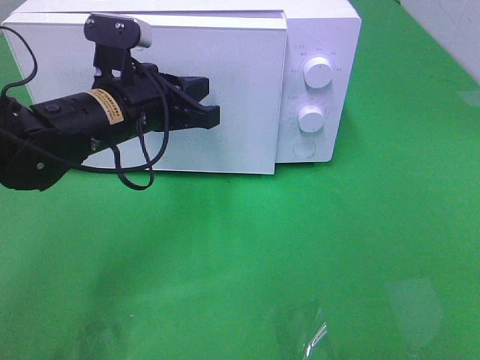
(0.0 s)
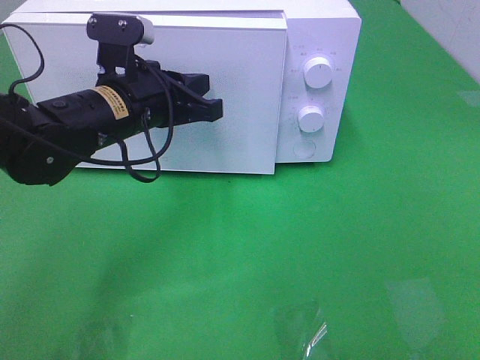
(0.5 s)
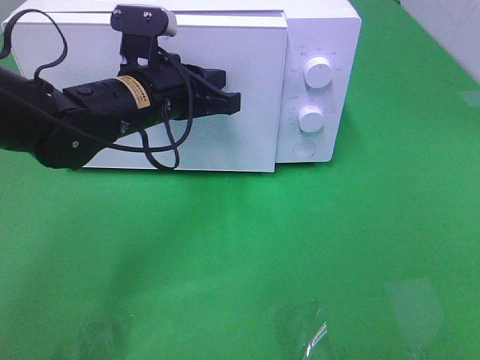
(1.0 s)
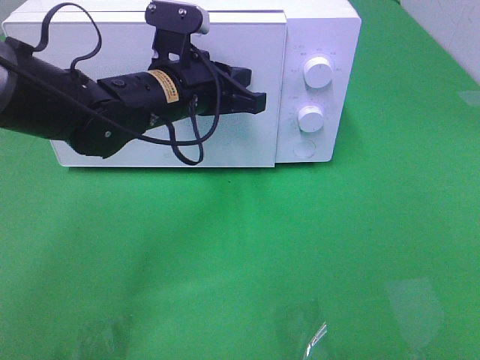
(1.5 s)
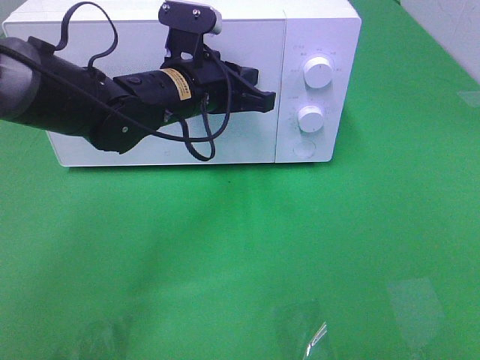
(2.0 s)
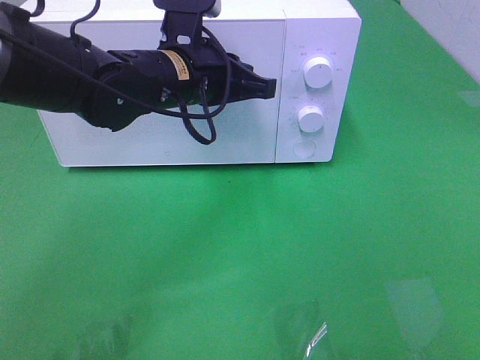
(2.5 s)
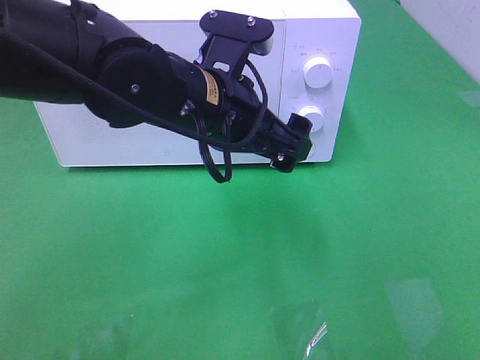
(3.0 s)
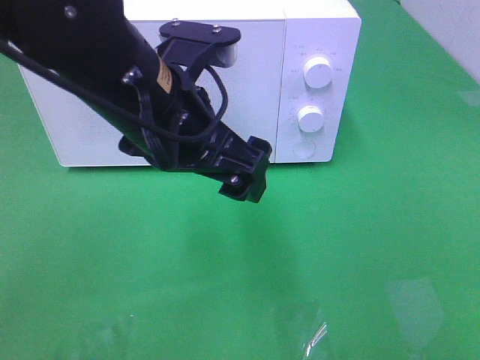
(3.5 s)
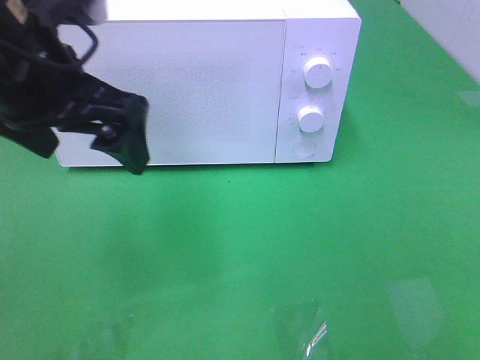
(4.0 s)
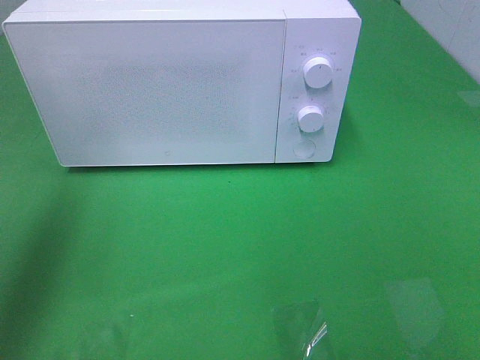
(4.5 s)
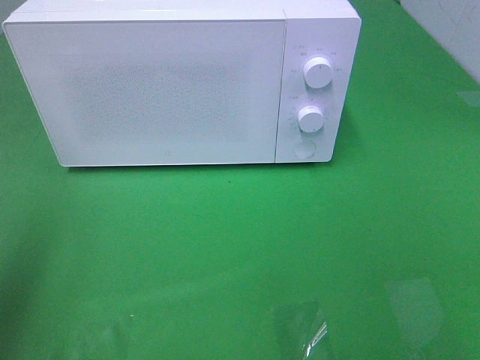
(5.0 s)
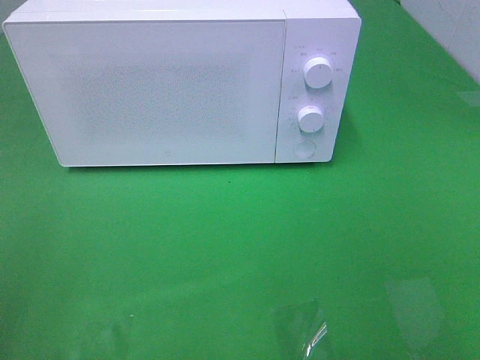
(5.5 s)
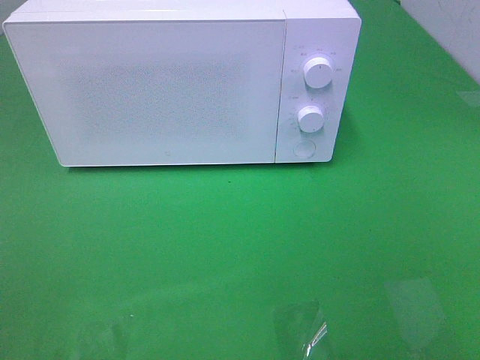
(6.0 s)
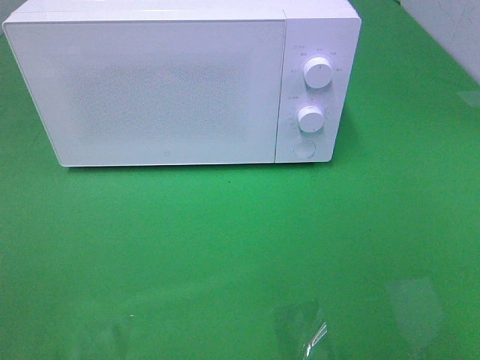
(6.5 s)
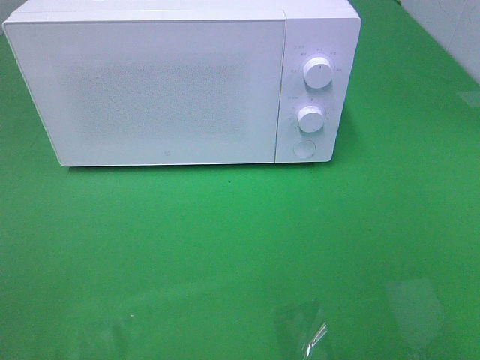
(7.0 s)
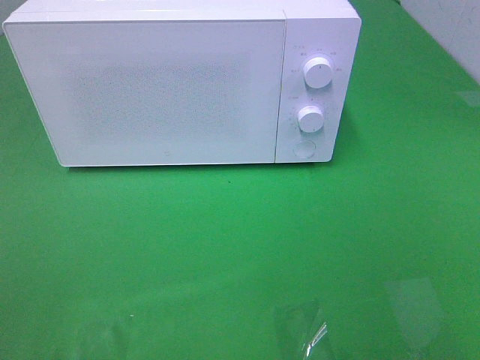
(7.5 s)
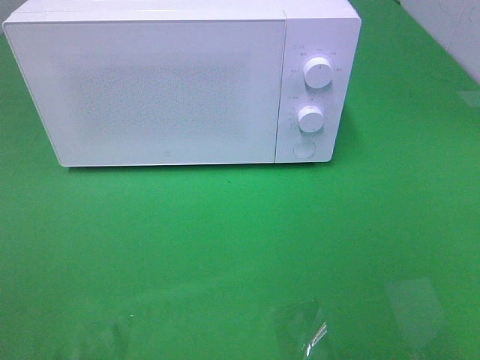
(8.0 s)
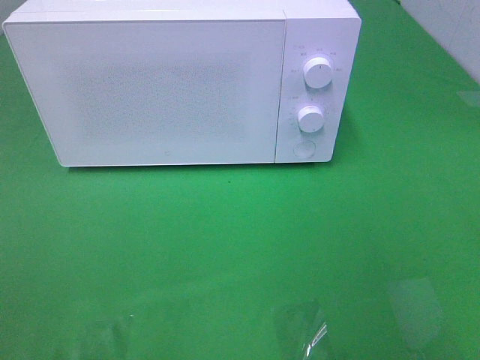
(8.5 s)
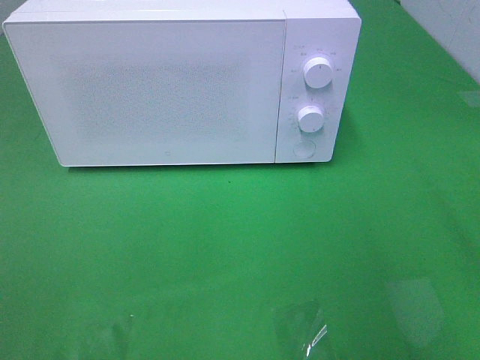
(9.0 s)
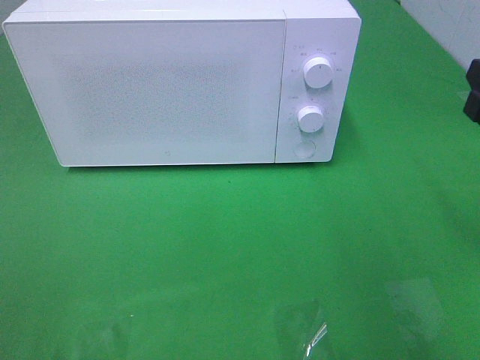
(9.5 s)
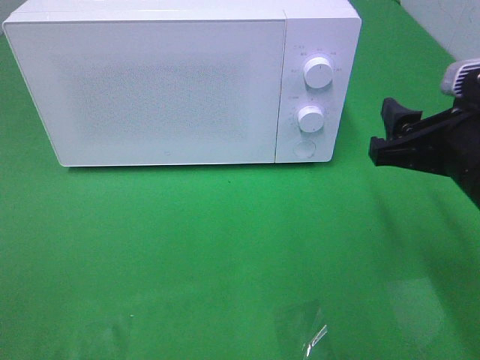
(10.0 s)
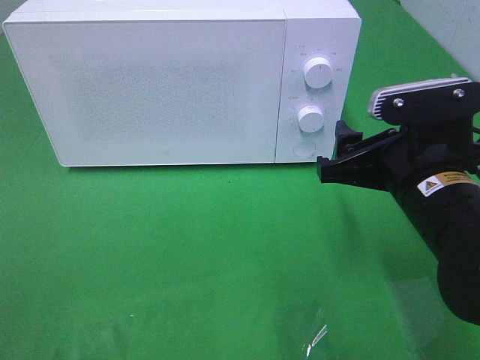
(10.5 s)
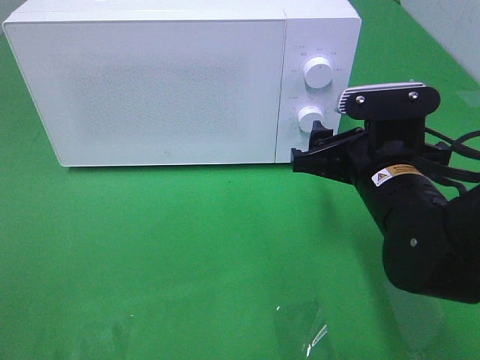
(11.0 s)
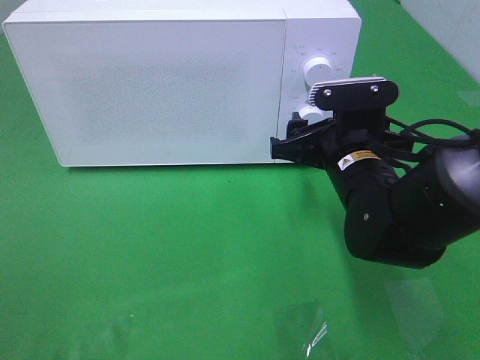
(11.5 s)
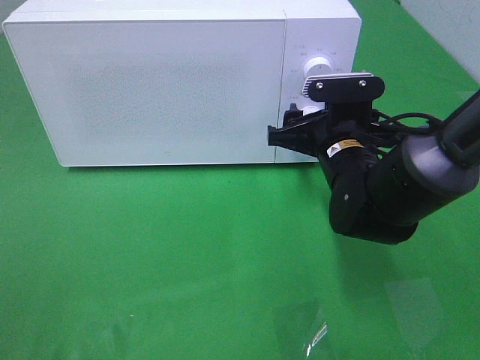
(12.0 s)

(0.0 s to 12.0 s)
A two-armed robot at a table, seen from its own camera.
Task of the whole recording: Heat the burger.
Step, 0.0 s - 2.5 s: Left hand: close the microwave door.
0.0 s - 2.0 s: The left gripper goes some 5 cm to the right.
2.0 s - 4.0 s: The left gripper goes some 20 cm upward, backward and to the left, and opens.
4.0 s - 6.0 s: The left gripper goes approximately 30 cm backward and to the left.
8.0 s - 10.0 s: The right gripper is displaced forward, downward and to the left by some 20 cm.
10.0 s - 12.0 s: The right gripper goes about 15 cm forward, to the left and downward.

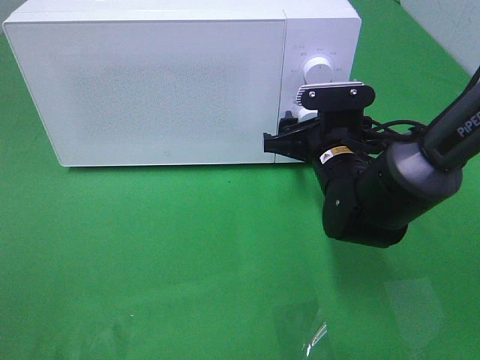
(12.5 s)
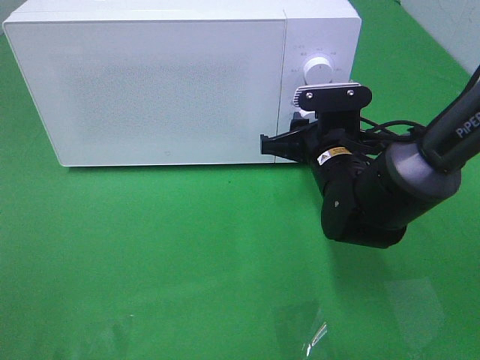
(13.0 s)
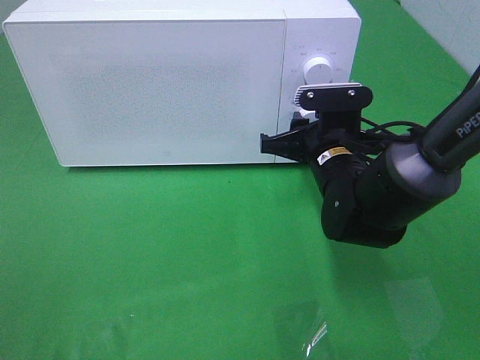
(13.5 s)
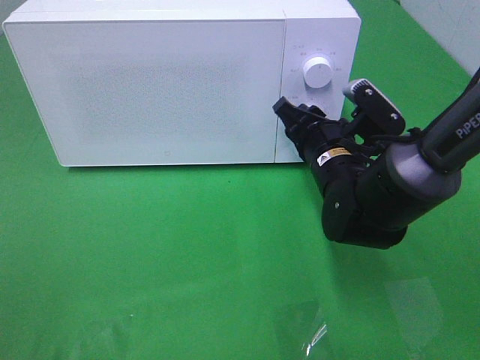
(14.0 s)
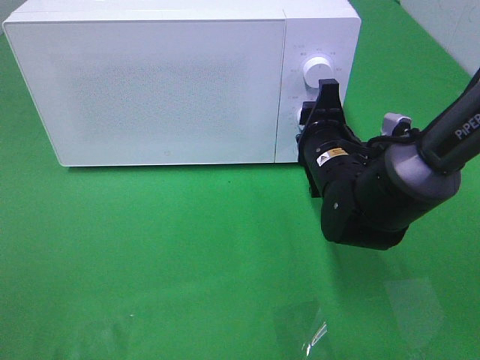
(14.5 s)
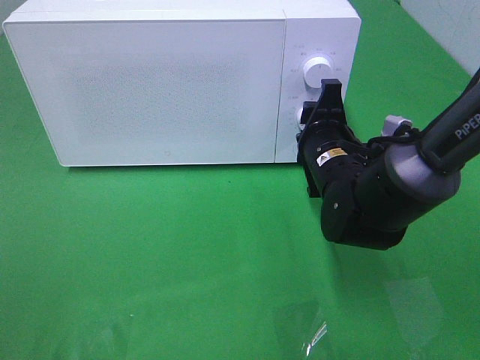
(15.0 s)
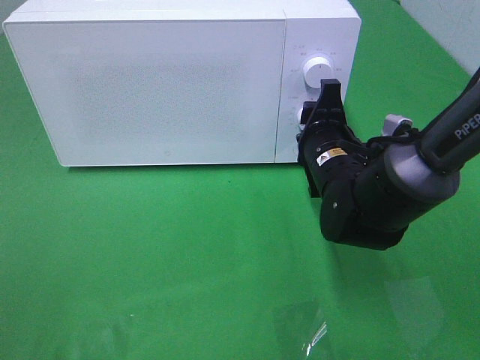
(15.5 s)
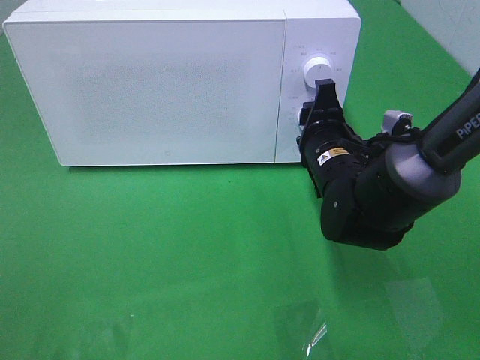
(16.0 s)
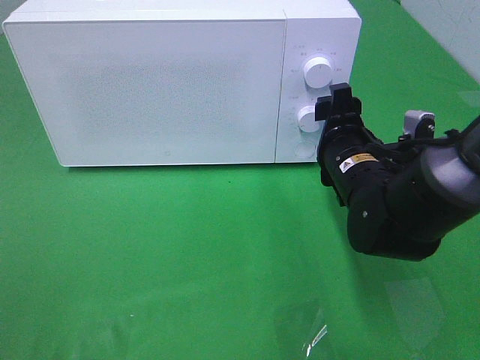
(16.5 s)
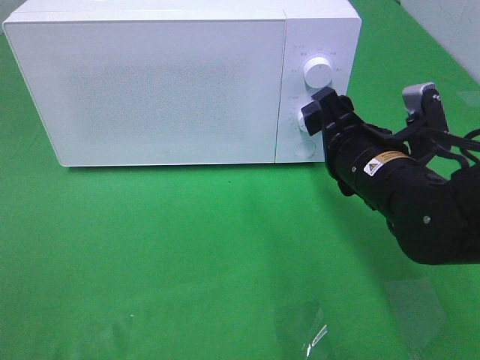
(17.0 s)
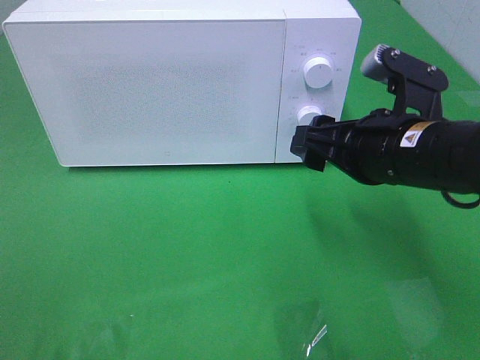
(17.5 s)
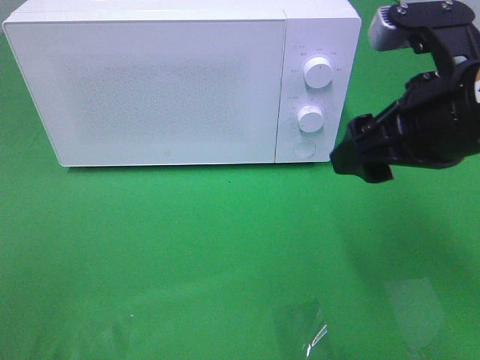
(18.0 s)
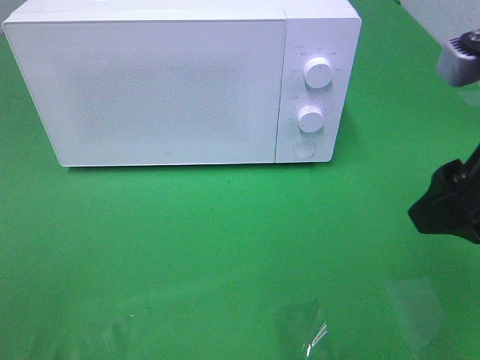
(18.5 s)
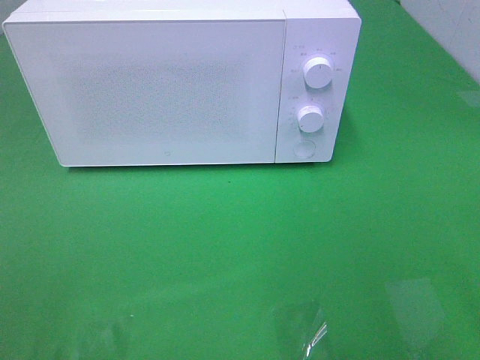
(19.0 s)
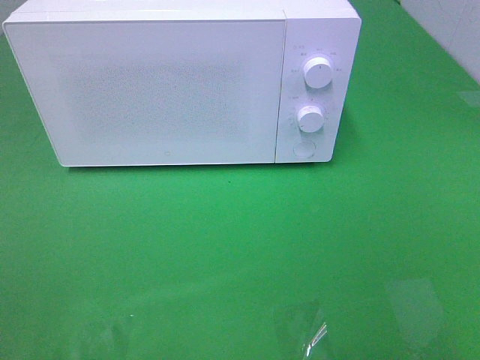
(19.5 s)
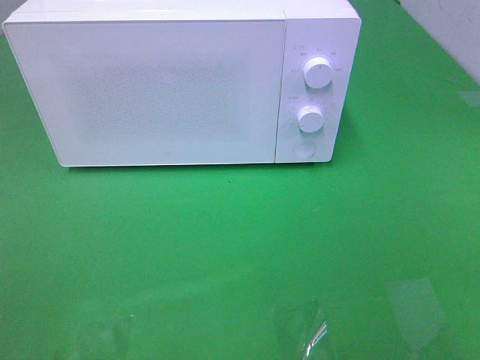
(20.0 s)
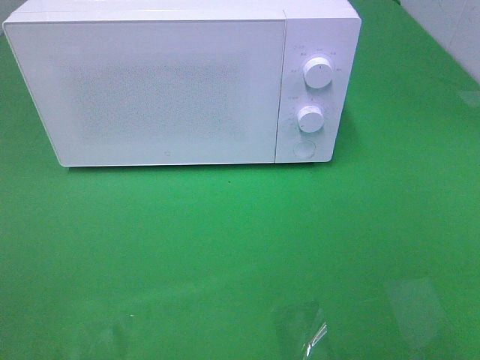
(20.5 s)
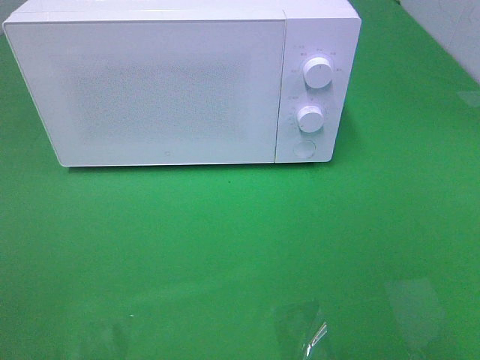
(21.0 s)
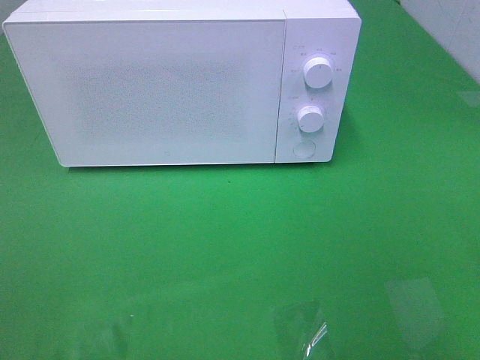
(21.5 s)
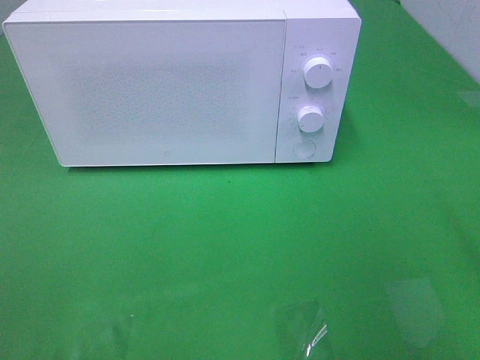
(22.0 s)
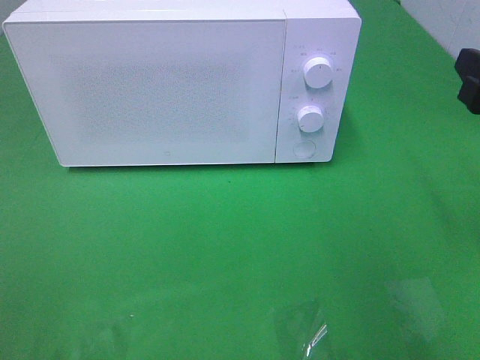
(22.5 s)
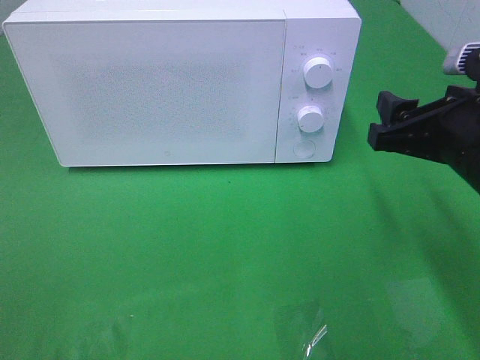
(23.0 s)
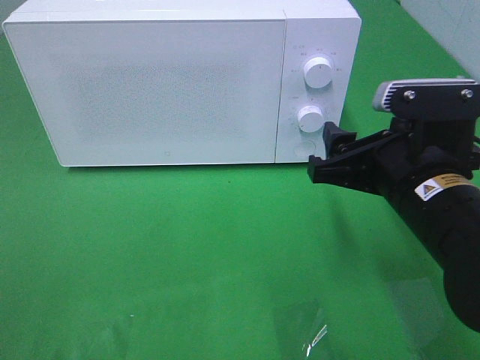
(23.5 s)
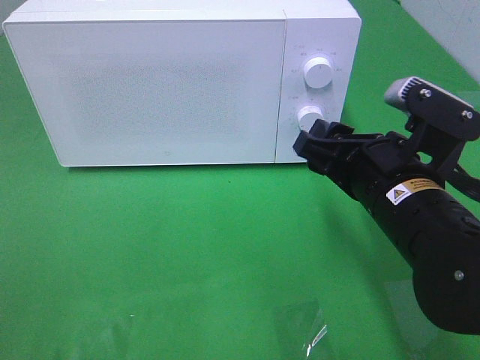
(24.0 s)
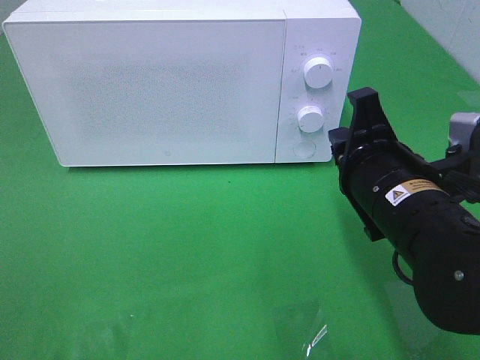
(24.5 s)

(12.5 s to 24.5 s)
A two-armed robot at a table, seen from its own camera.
Task of the whole recording: Heat the burger.
Step, 12.5 s - 16.0 s: Right hand: twist timer button.
12.5 s - 14.5 s: The right gripper closes its fingers.
14.5 s - 16.5 s: The right gripper opens its fingers.
16.5 s - 18.5 s: The right gripper heads upward, backward and to the right, covering roughly 25 cm.
18.5 s - 20.5 s: The right gripper is displaced backward and to the right by about 20 cm.
20.5 s - 22.5 s: The right gripper travels forward by roughly 20 cm.
22.5 s - 24.5 s: The right gripper shifts some 15 cm to the left and downward, and closes.

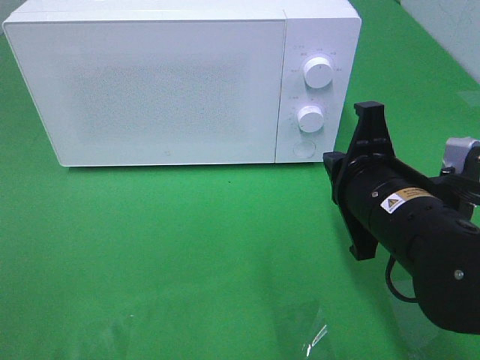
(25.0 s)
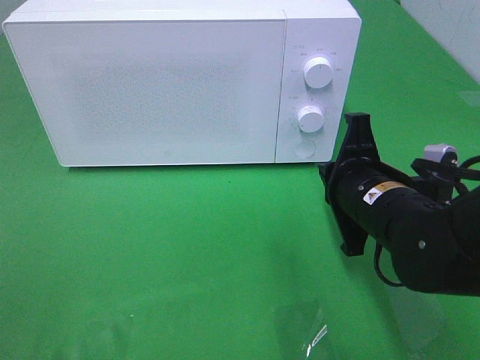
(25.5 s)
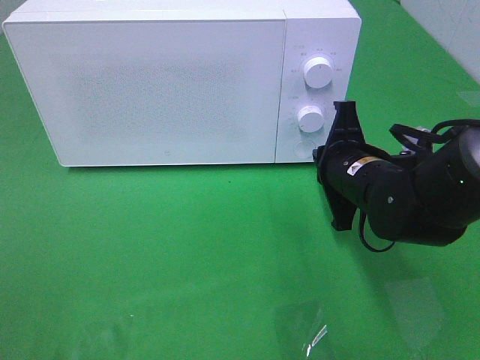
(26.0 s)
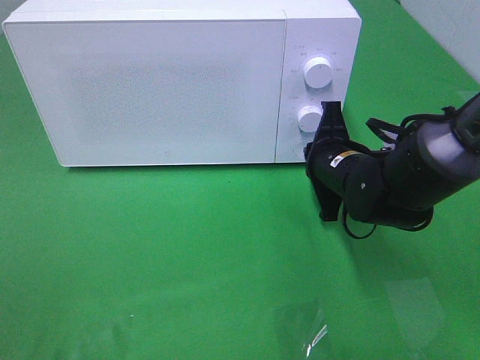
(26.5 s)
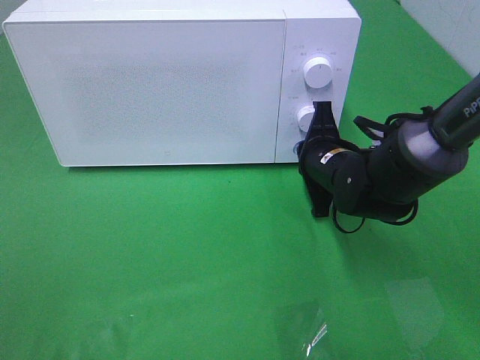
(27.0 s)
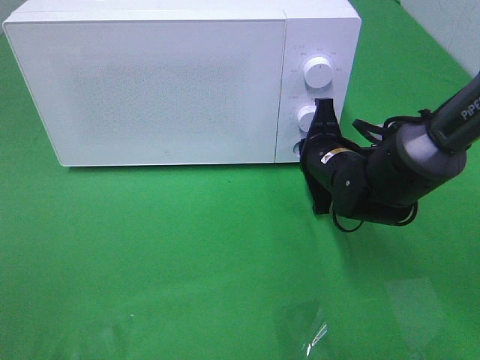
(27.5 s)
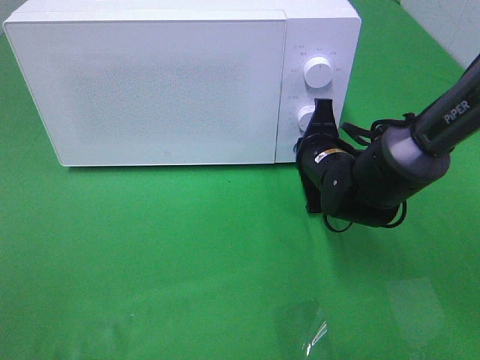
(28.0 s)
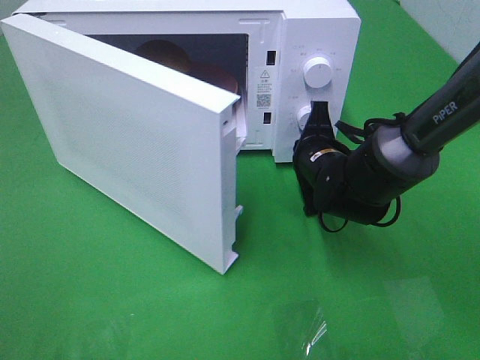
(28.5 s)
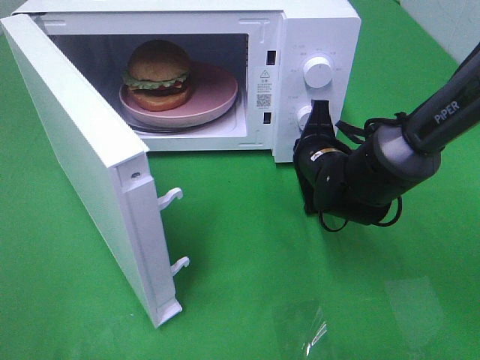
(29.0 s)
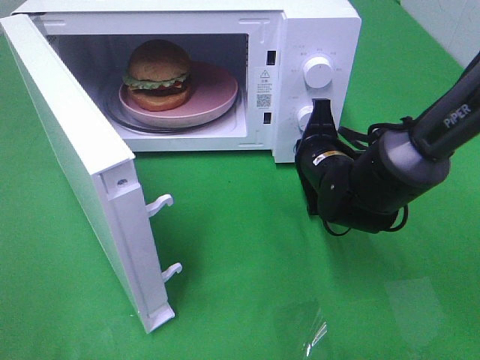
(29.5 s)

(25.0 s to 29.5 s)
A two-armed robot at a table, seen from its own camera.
Task of the whole recording: Heat the burger.
25.0 s - 27.0 s: The right gripper goes roughly 15 cm forward and downward.
